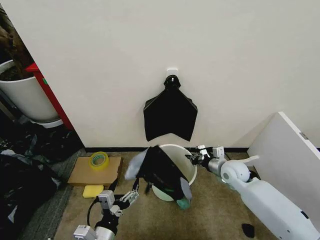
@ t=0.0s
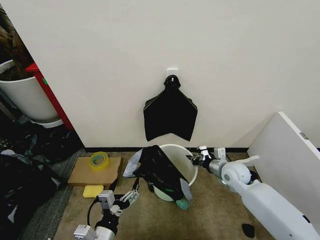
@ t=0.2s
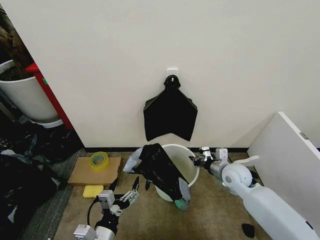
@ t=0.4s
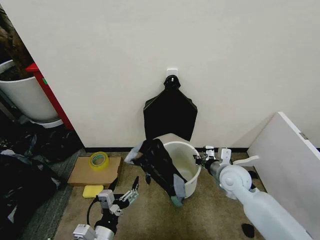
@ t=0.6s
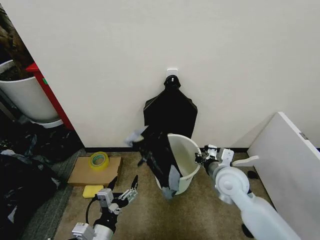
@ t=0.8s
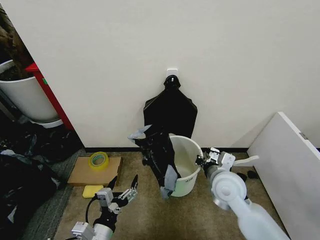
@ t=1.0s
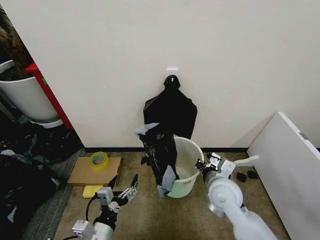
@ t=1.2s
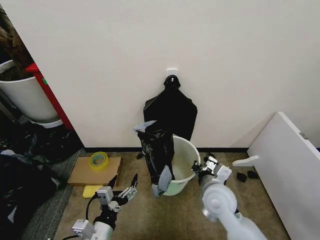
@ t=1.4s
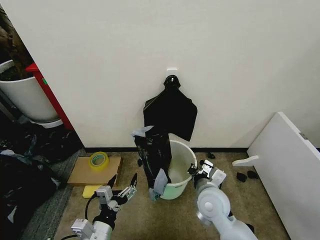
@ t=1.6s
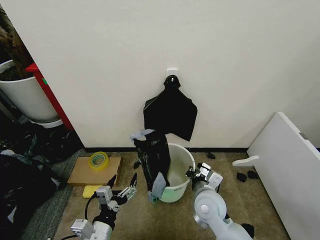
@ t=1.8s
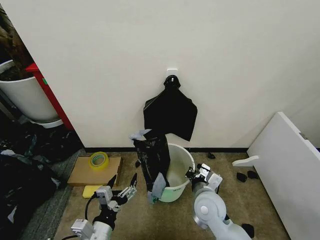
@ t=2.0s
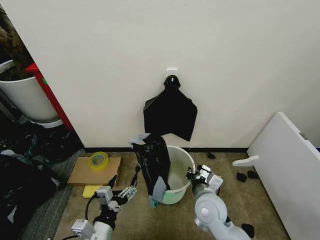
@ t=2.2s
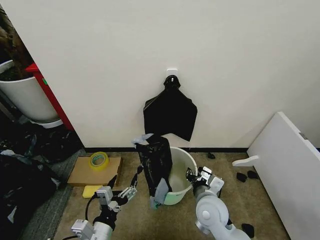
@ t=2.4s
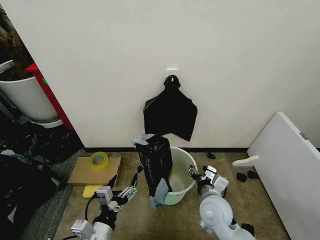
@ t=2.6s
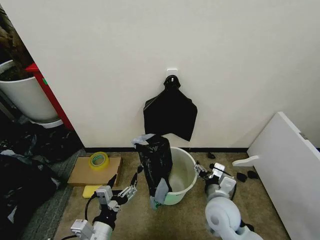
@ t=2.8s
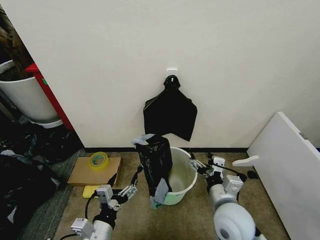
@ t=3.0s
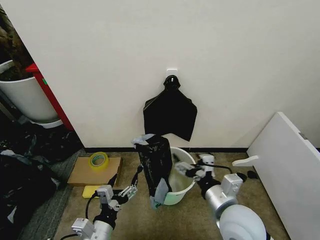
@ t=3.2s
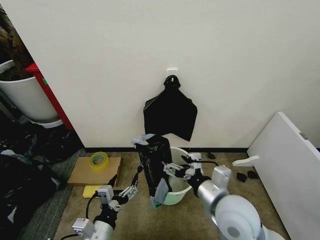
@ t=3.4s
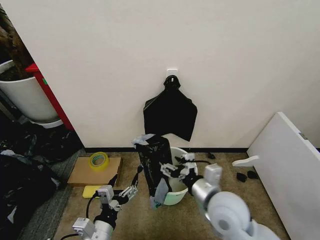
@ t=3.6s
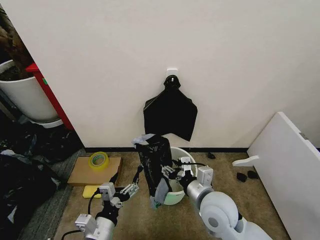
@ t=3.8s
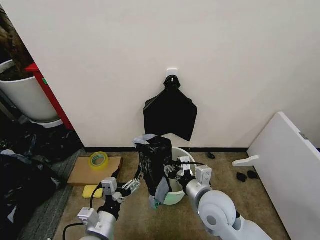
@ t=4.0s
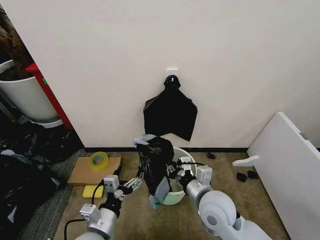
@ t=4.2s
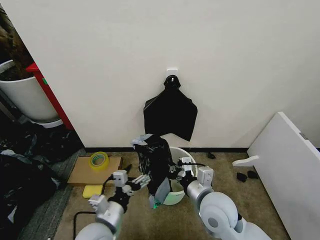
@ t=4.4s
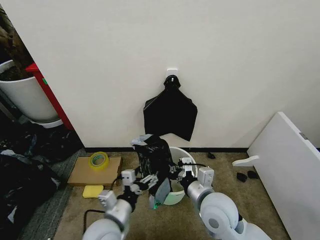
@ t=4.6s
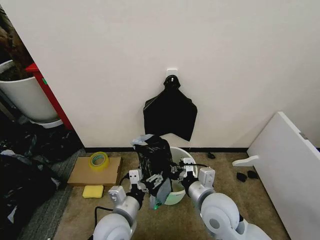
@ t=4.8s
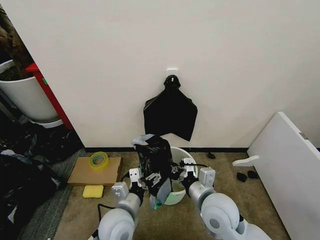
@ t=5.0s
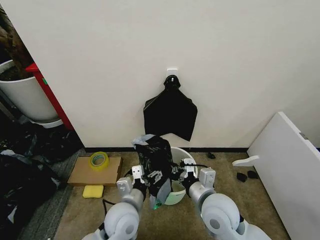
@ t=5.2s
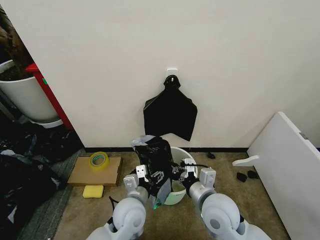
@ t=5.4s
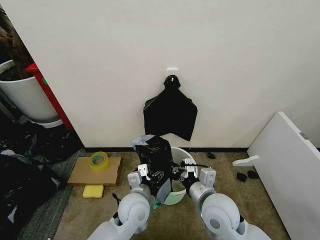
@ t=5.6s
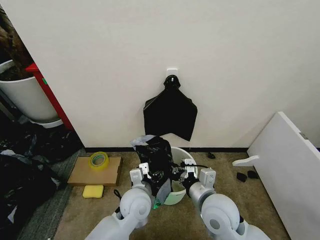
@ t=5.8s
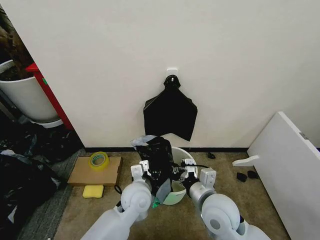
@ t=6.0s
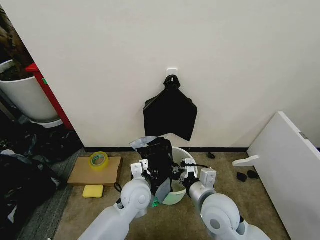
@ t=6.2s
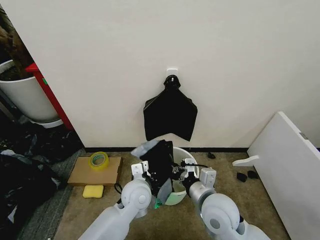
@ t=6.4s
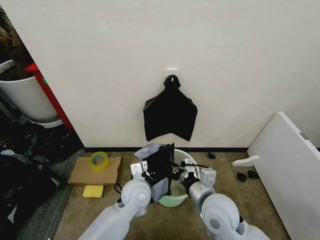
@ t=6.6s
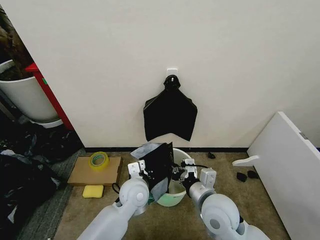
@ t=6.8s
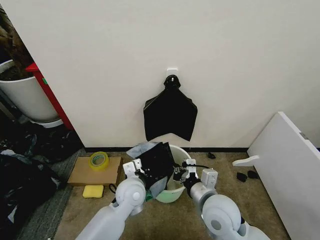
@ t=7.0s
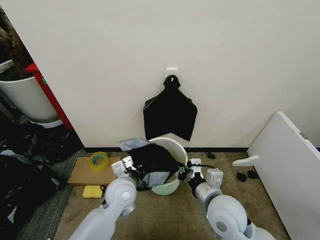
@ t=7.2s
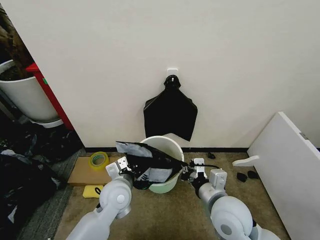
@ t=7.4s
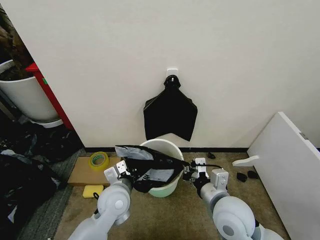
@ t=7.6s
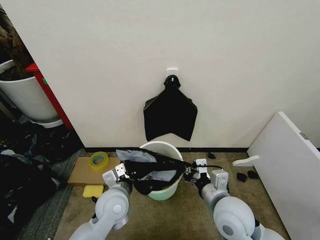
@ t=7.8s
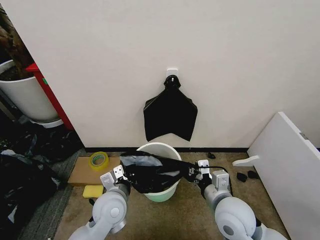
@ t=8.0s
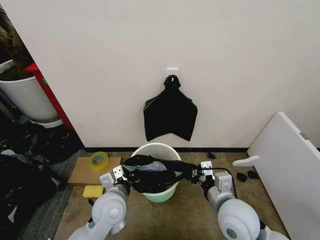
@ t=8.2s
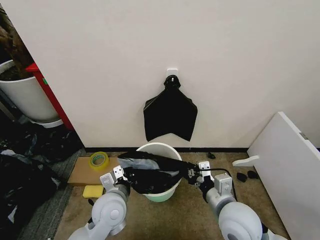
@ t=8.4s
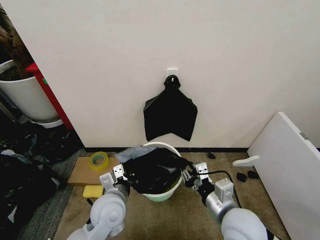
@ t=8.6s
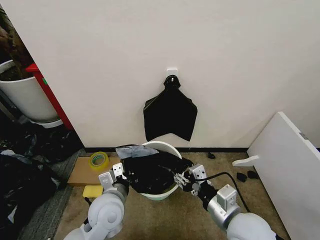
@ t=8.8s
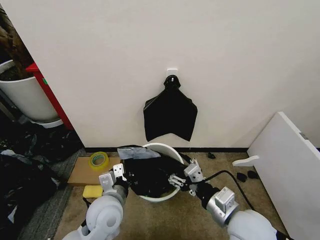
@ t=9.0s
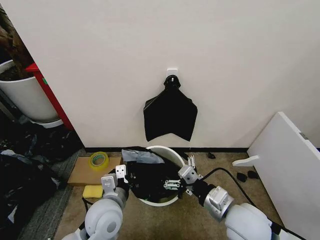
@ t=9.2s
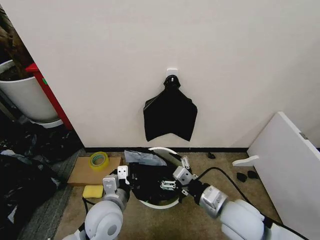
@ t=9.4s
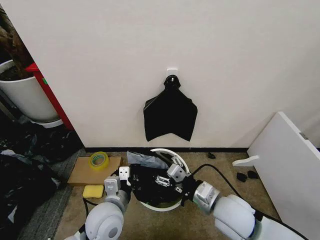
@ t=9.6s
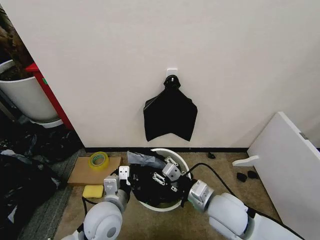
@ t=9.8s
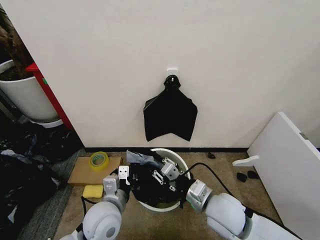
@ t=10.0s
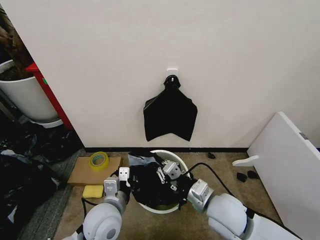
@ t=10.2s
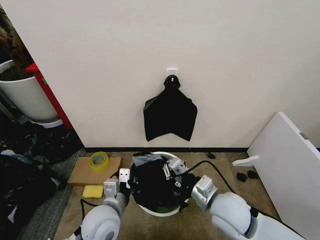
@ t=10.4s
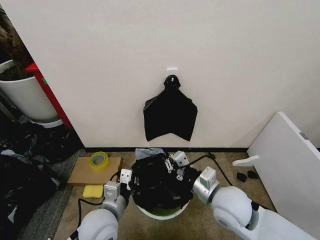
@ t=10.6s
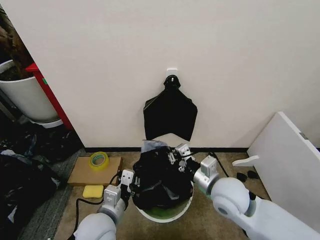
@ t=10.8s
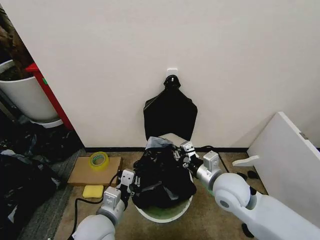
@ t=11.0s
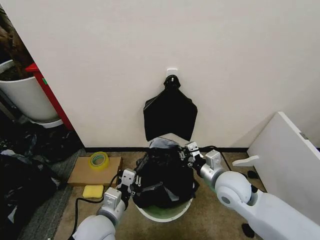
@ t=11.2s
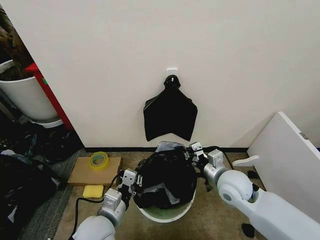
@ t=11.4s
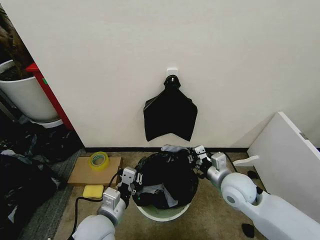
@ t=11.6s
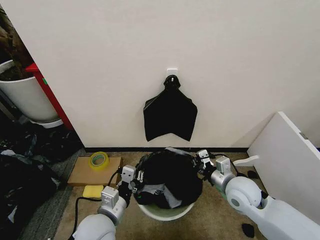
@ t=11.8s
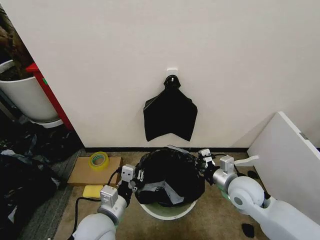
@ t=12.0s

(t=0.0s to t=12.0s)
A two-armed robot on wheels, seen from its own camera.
Task of the whole recording: Place the garbage bag over the trash bin.
t=0.0s - t=1.6s: The right gripper goes roughly 15 cm backward and to the left.
t=1.6s - t=3.0s: The right gripper goes roughly 5 cm backward, and opens its fingers.
t=3.0s - t=4.4s: The right gripper closes up.
t=4.4s - t=6.0s: The left gripper travels forward and to the right by some 15 cm.
t=6.0s - t=7.6s: The left gripper moves to the left, some 5 cm, and closes up.
t=7.6s - t=9.0s: The right gripper opens up.
t=9.0s - t=10.4s: The right gripper moves forward, about 5 cm, and closes its fingers.
t=10.4s - t=12.0s: The right gripper heads to the right and forward, covering approximately 10 cm.

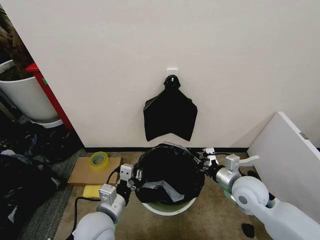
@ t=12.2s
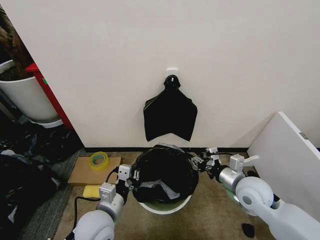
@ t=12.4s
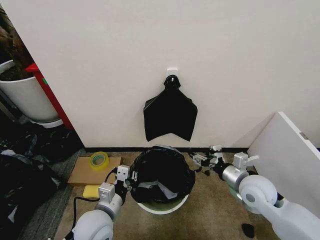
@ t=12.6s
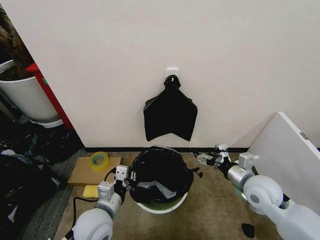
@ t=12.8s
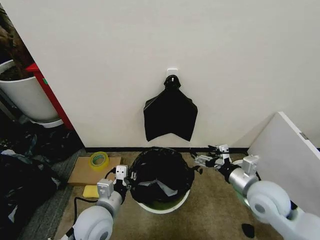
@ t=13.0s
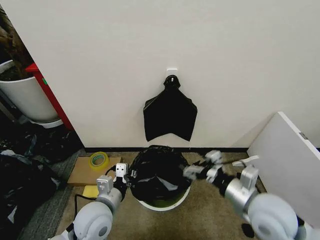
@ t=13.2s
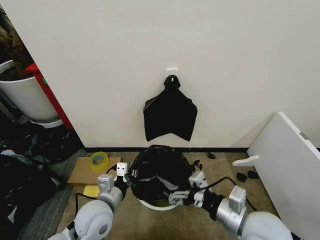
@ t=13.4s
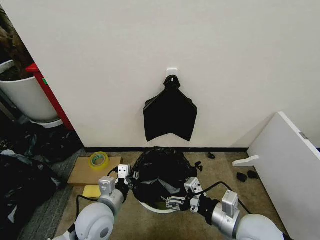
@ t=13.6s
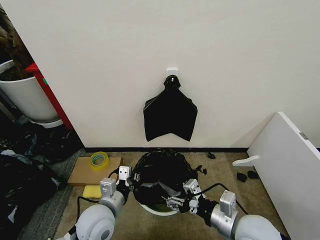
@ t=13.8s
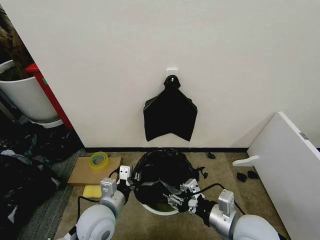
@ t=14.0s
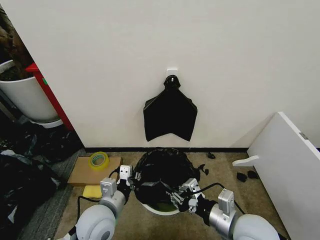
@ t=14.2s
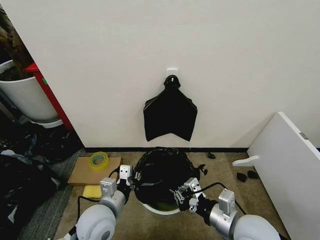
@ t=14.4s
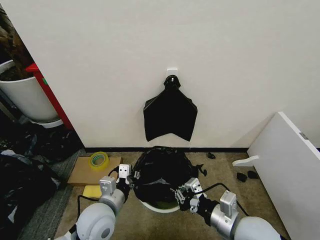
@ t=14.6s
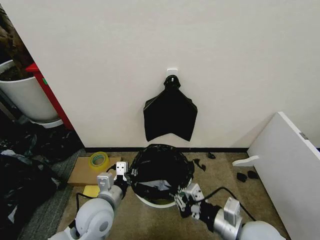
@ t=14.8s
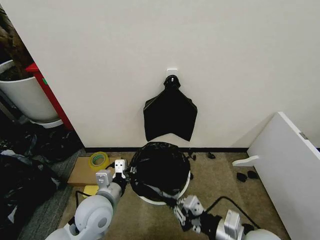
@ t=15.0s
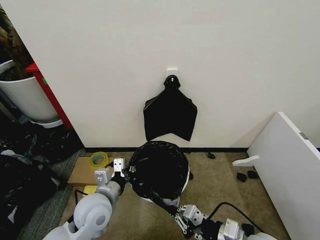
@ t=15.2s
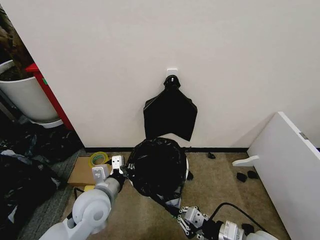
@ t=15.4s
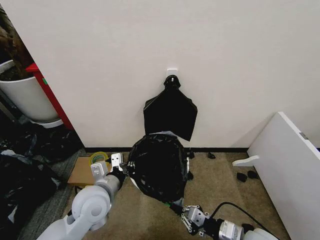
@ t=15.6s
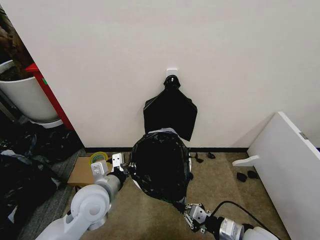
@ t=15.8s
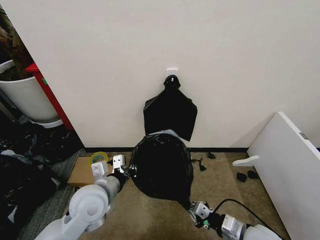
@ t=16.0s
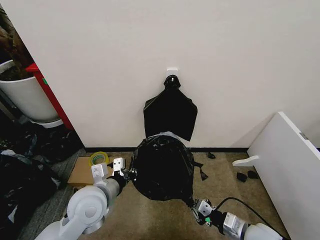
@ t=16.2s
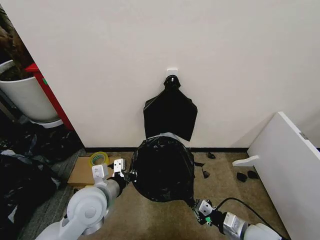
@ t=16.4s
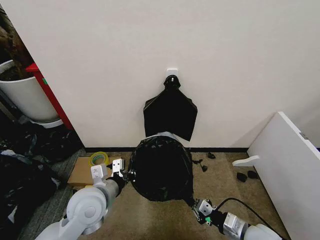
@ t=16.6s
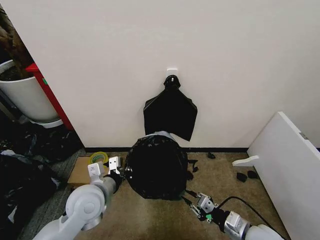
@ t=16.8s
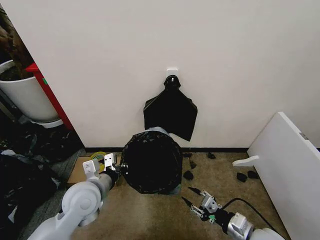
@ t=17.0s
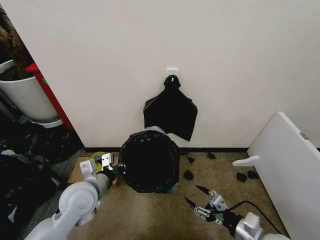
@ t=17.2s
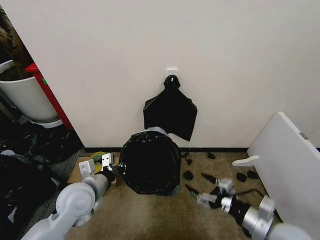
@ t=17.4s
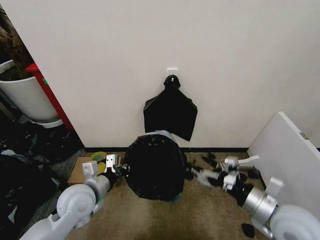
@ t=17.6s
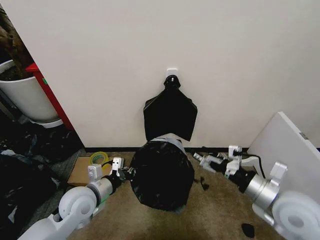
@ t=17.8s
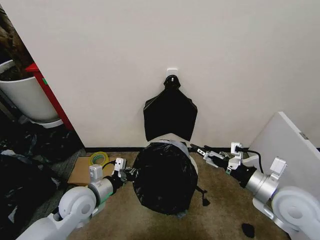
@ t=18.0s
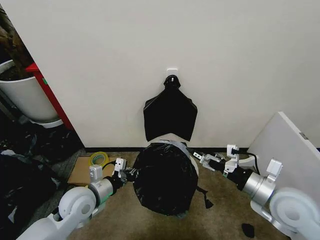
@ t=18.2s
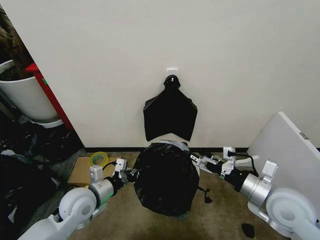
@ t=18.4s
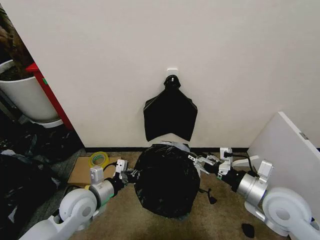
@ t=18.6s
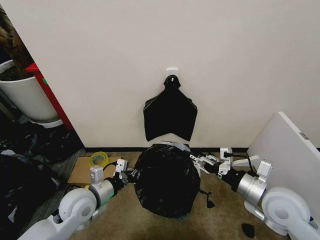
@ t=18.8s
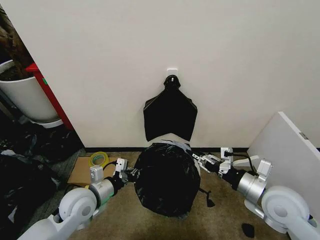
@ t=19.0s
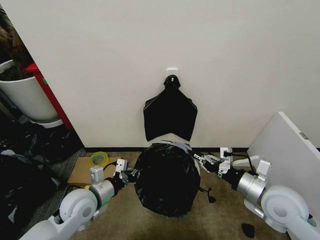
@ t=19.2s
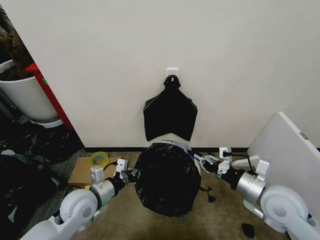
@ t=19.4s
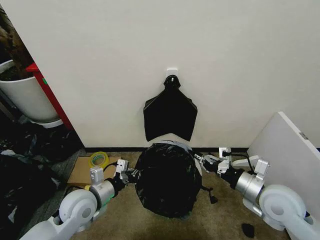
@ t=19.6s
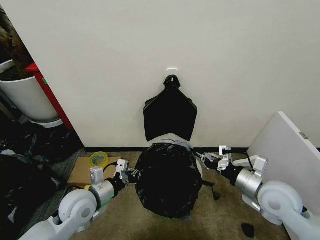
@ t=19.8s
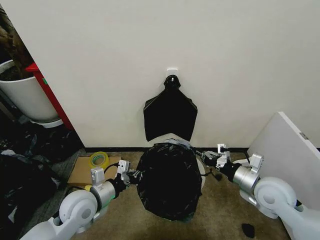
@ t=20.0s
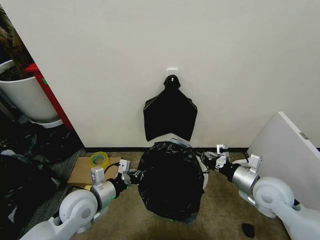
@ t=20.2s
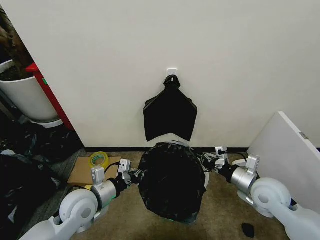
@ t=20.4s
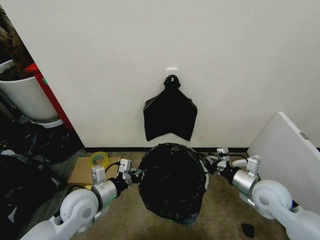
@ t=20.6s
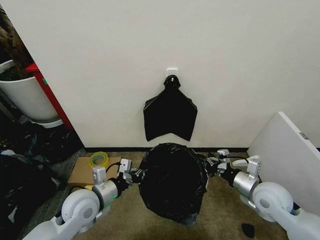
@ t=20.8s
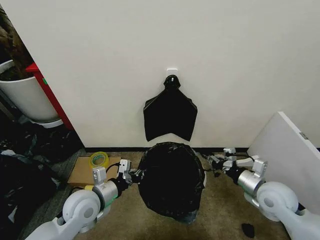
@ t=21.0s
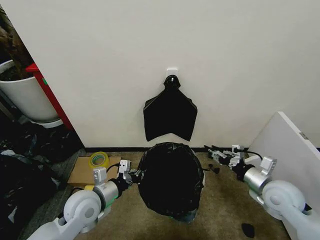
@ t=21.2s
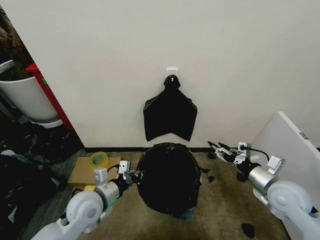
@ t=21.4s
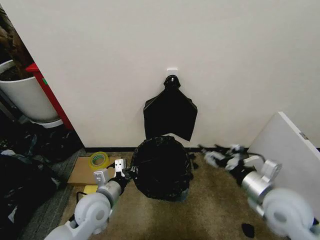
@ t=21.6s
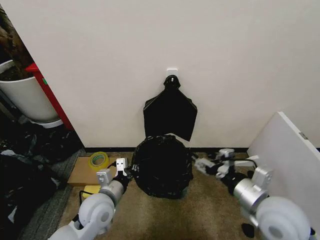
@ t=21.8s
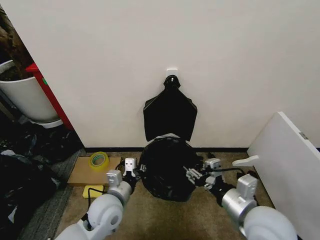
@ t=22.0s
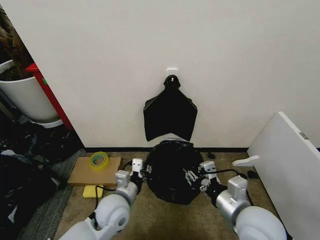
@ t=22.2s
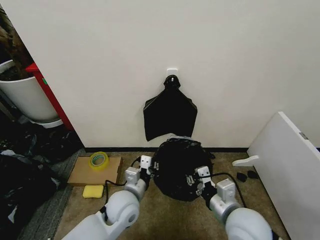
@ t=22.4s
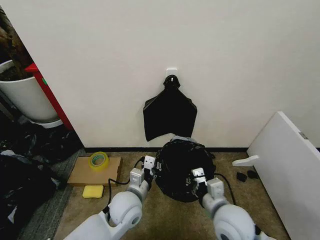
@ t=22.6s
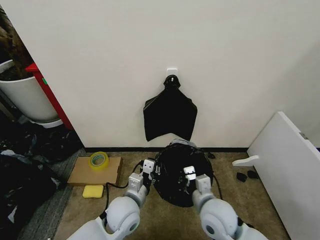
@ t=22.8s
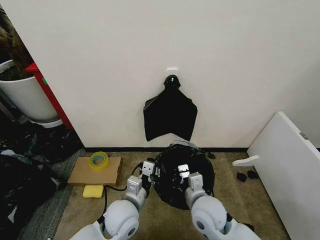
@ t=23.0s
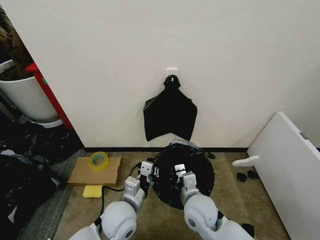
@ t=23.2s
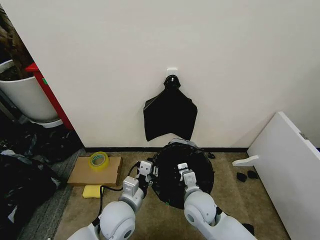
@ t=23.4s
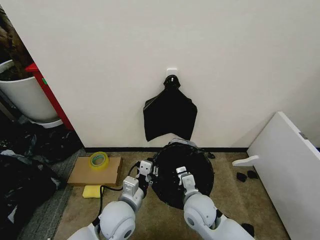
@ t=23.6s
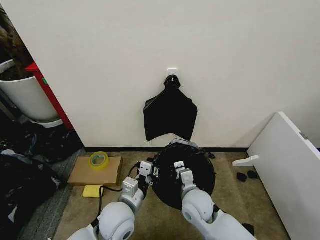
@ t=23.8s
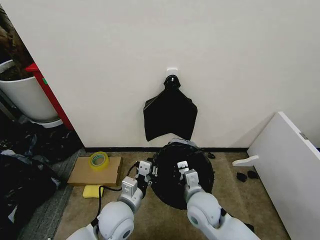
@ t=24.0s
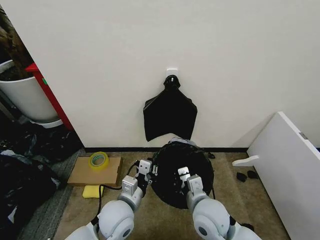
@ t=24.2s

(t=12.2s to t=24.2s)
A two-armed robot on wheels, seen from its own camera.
Task of the whole recording: Place the garbage bag over the trash bin.
t=12.2s - t=13.8s: The right gripper heads backward, covering approximately 10 cm, and opens up.
t=13.8s - t=15.2s: The right gripper closes its fingers.
t=15.2s - t=16.6s: The right gripper shifts about 10 cm downward and to the right.
t=16.6s - t=18.2s: The right gripper is displaced upward by roughly 15 cm, and opens up. Meanwhile the left gripper changes place by roughly 5 cm.
t=18.2s - t=19.8s: The right gripper closes its fingers.
t=19.8s - t=21.2s: The right gripper ends up some 5 cm from where it was, and opens up.
t=21.2s - t=22.6s: The left gripper goes some 10 cm to the right; the right gripper heads to the left, covering approximately 15 cm, and closes.
